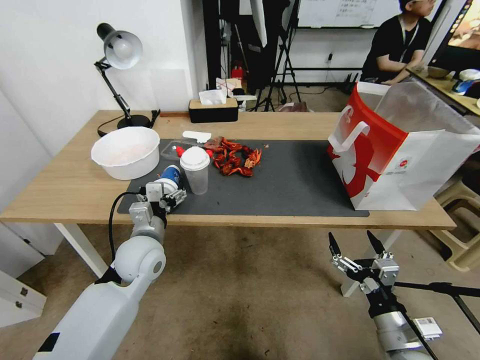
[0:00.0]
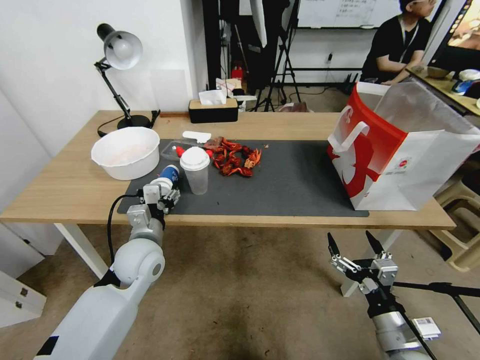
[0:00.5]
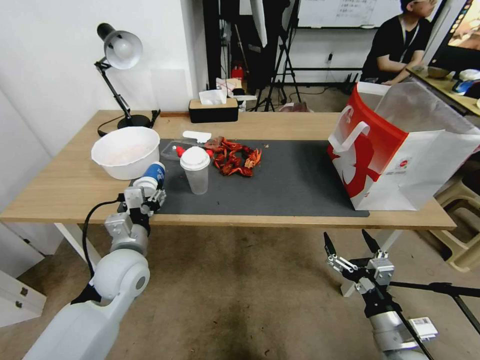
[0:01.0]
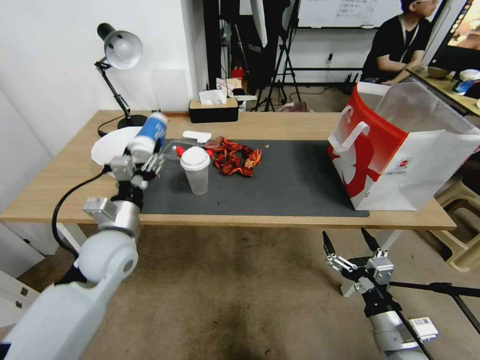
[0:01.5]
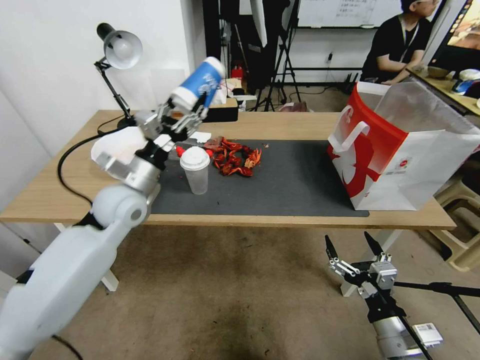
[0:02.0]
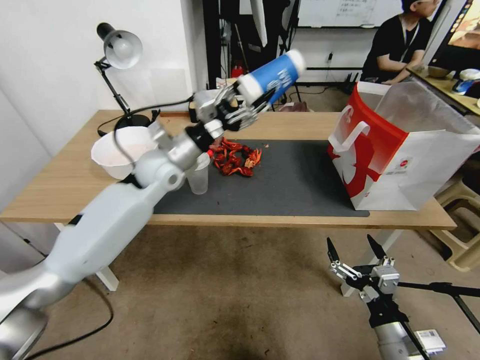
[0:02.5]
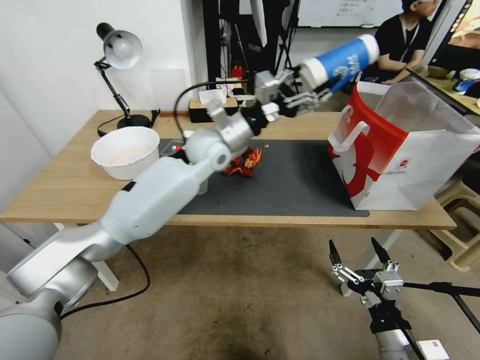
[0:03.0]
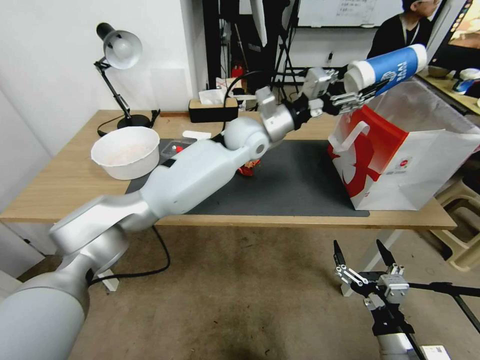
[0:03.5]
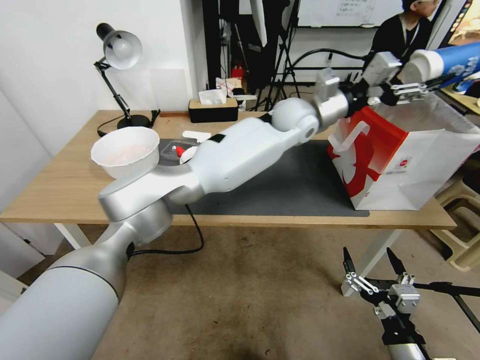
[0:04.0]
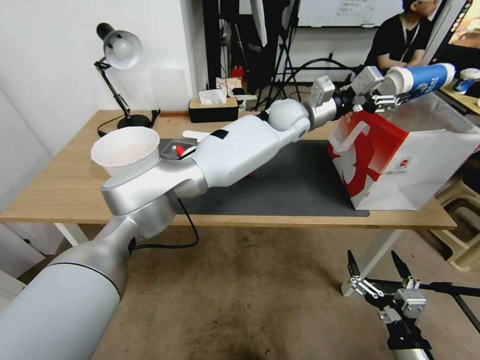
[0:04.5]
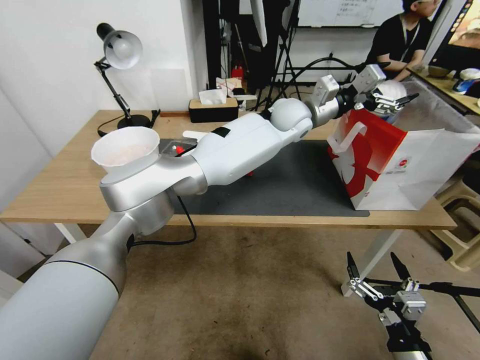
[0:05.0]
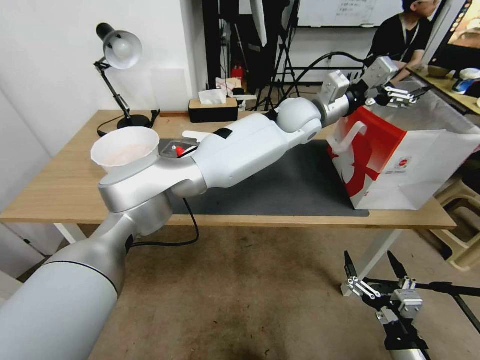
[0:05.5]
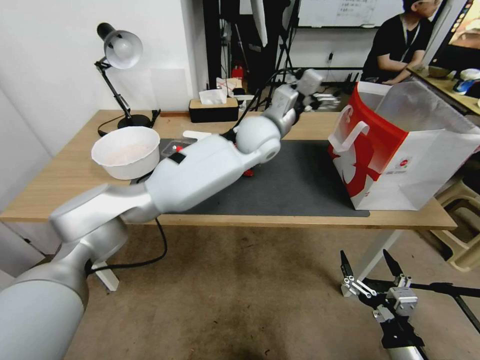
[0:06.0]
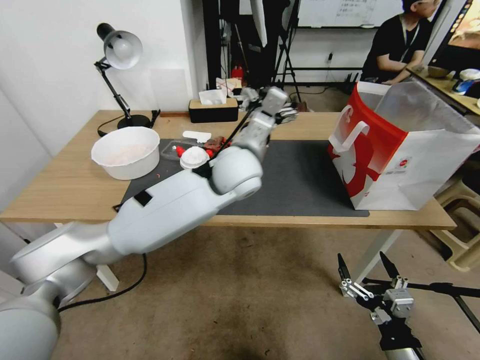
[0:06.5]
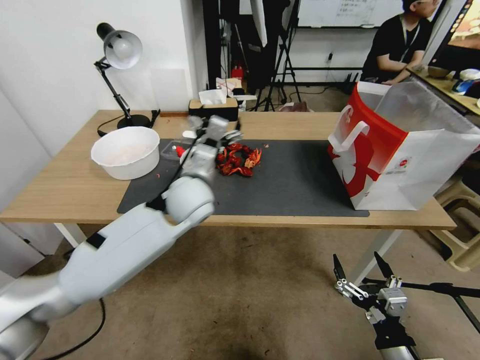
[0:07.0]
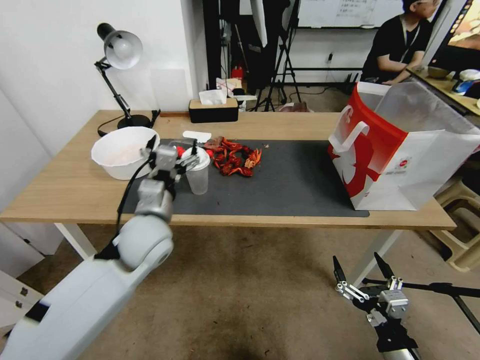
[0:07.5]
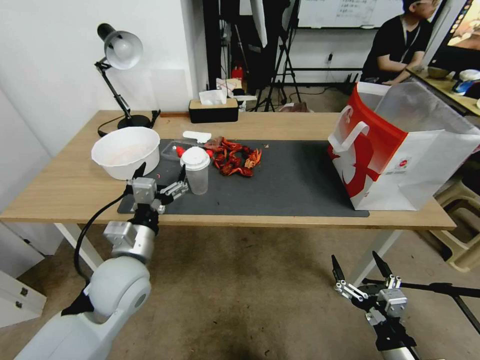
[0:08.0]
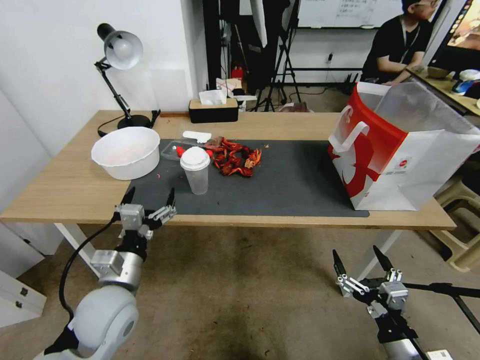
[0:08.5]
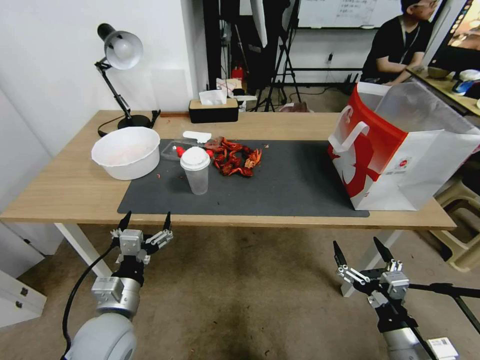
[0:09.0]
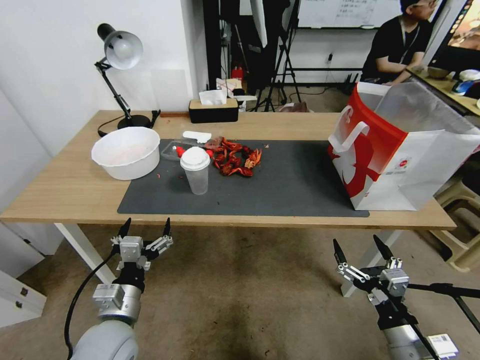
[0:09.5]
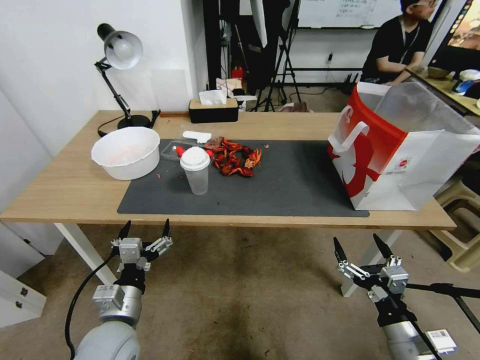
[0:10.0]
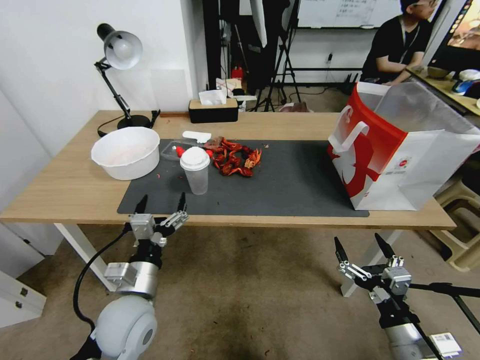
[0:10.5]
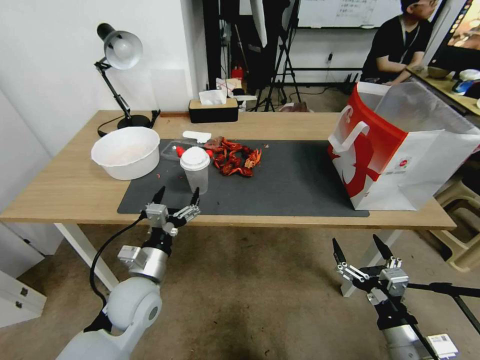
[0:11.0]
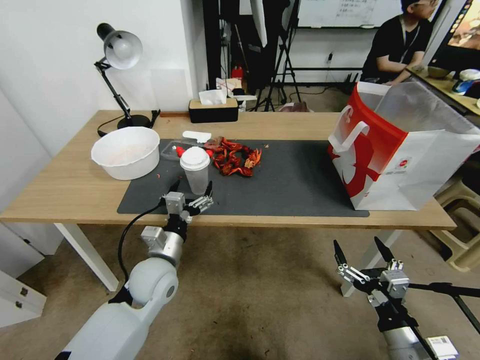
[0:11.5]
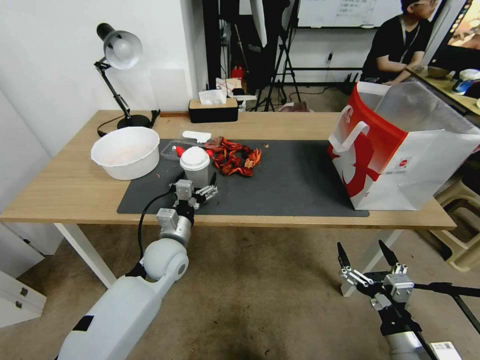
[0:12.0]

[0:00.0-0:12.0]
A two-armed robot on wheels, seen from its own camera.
0:00.0 to 0:02.0: The left gripper heads upward and forward, covering some 10 cm.
0:02.0 to 0:04.0: The left gripper heads to the right and forward, covering some 40 cm.
0:04.0 to 0:06.0: The left gripper moves to the left, approximately 10 cm, and opens up.
0:06.0 to 0:08.0: The left gripper travels backward, to the left and downward by approximately 40 cm.
0:08.0 to 0:10.0: The left gripper goes some 10 cm downward and backward.
0:10.0 to 0:12.0: The left gripper is displaced forward by some 15 cm.

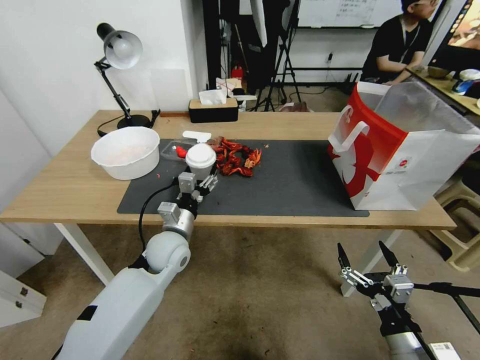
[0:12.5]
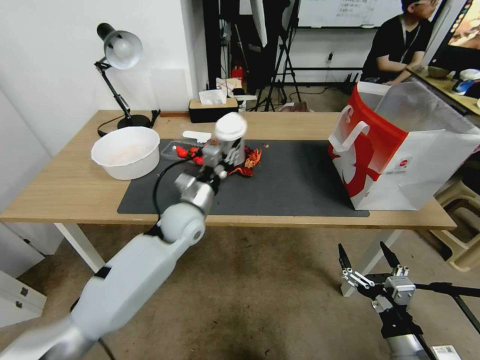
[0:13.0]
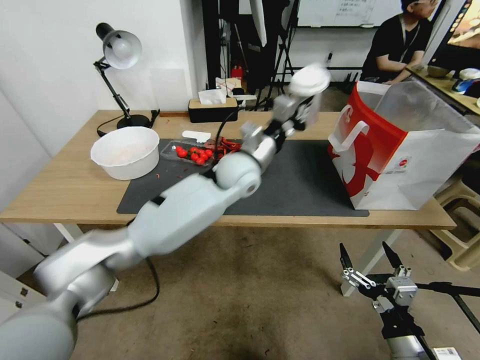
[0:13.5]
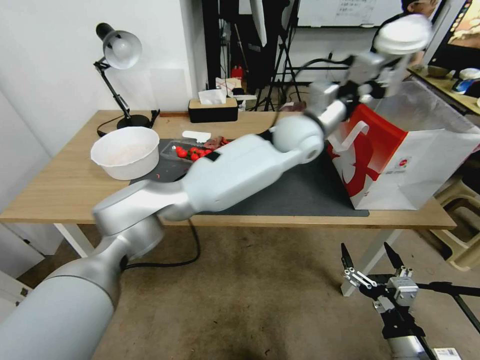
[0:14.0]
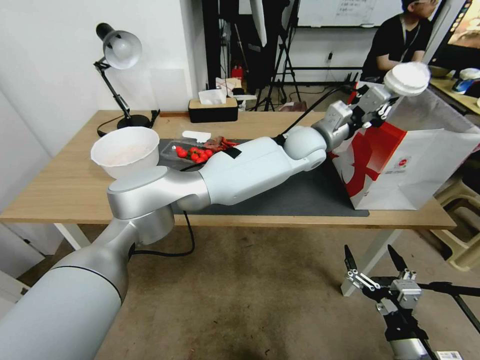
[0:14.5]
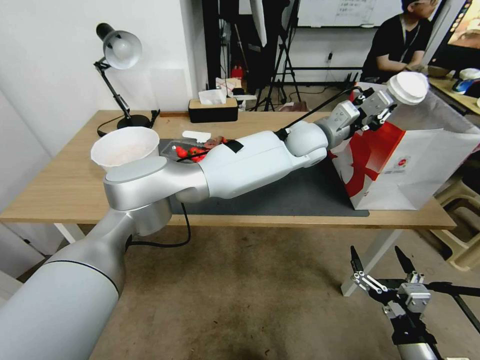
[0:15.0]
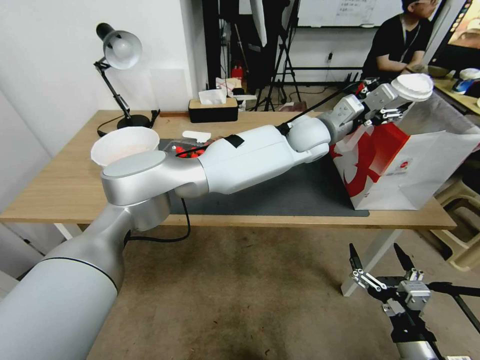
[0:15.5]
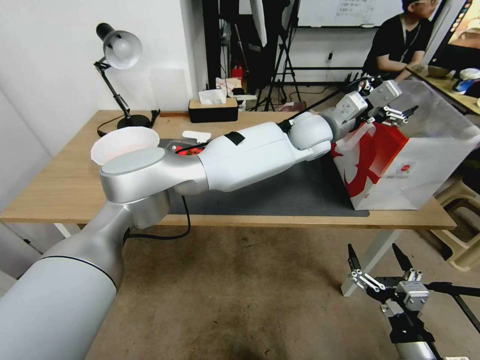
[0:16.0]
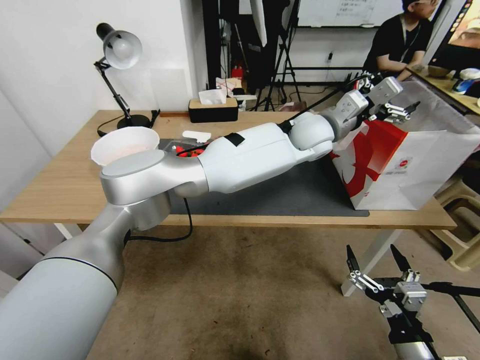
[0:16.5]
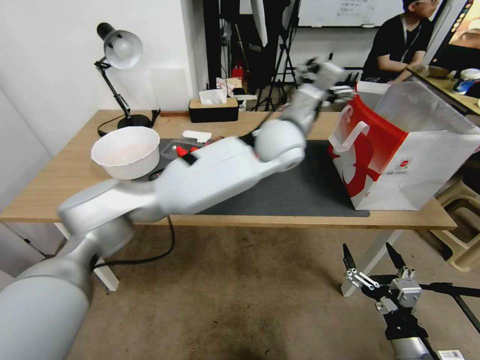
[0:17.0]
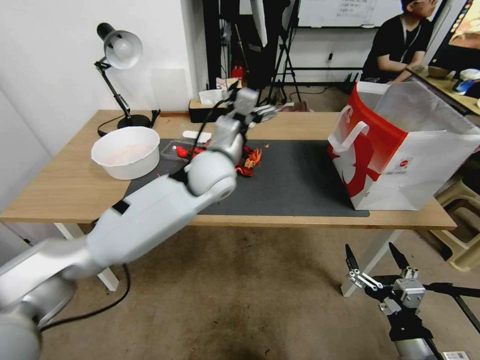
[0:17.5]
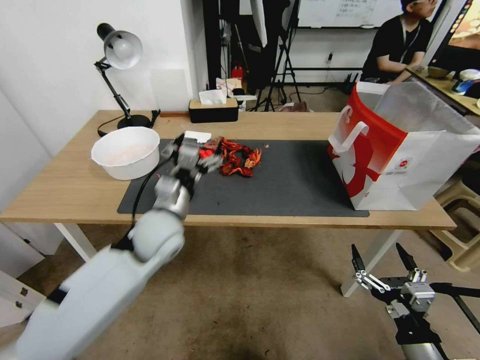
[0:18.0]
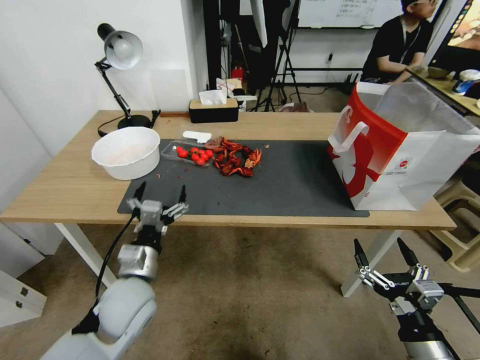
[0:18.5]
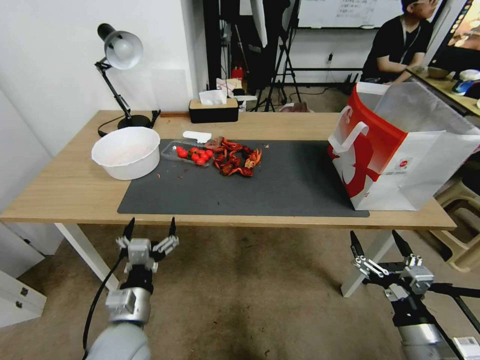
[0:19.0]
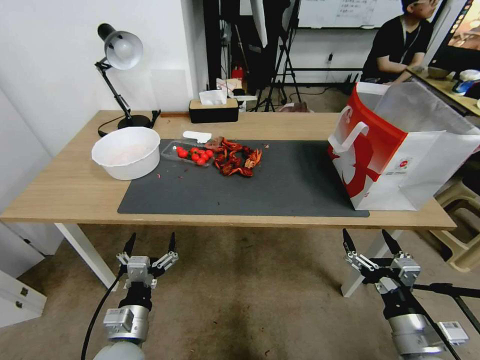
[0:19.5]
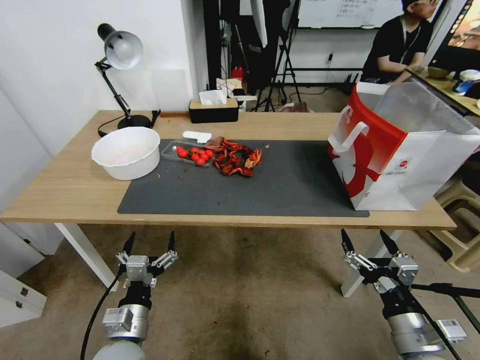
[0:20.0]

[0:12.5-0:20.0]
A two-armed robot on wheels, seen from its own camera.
0:12.5 to 0:14.5: The left gripper goes about 40 cm to the right, upward and forward, and closes.
0:14.5 to 0:16.5: The left gripper opens its fingers.
0:16.5 to 0:18.0: The left gripper shifts roughly 40 cm to the left, backward and downward.
0:18.0 to 0:20.0: The left gripper travels backward and downward by about 25 cm.
